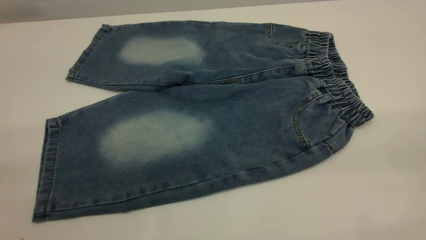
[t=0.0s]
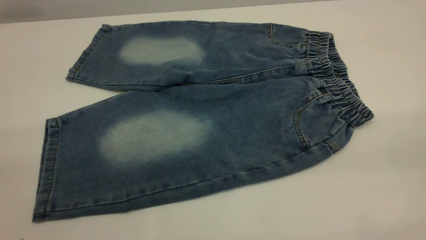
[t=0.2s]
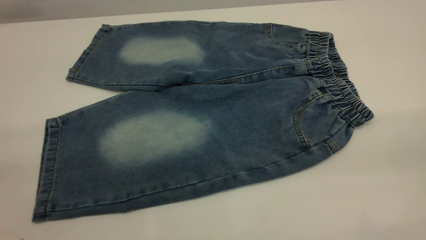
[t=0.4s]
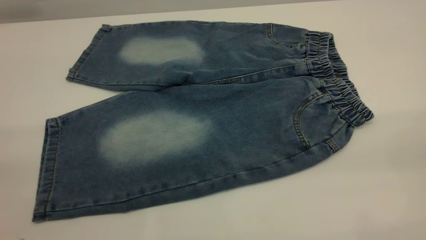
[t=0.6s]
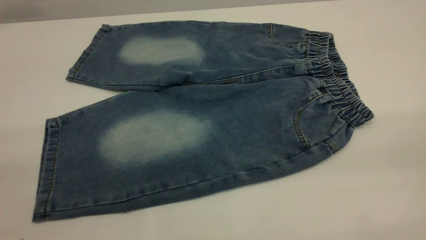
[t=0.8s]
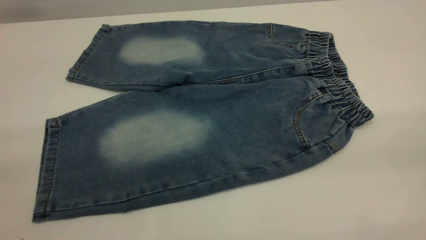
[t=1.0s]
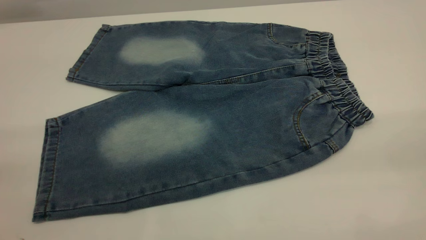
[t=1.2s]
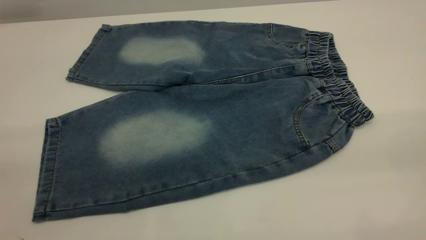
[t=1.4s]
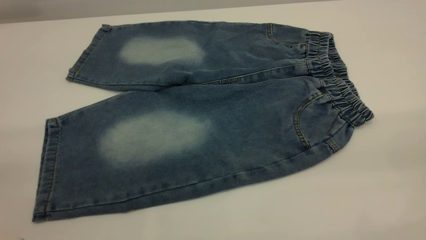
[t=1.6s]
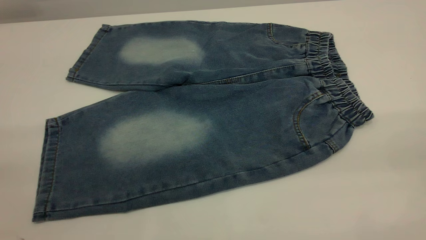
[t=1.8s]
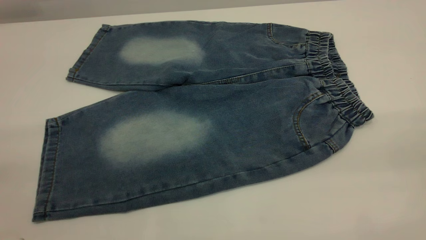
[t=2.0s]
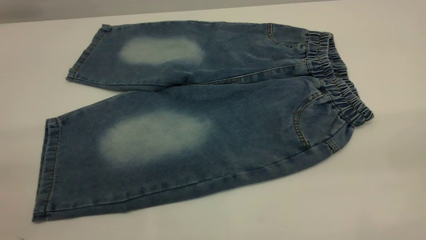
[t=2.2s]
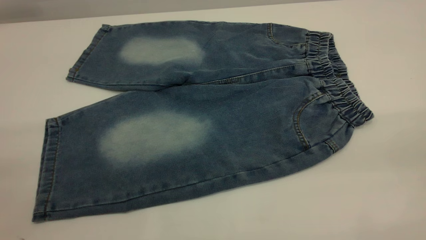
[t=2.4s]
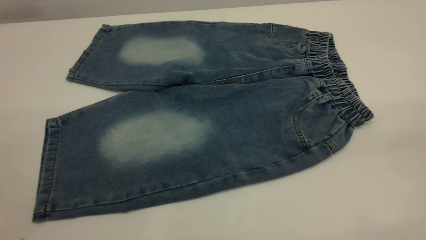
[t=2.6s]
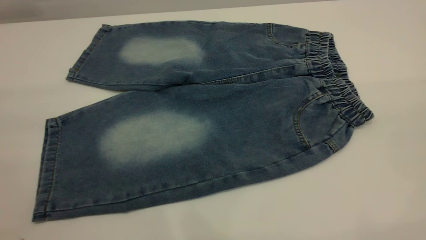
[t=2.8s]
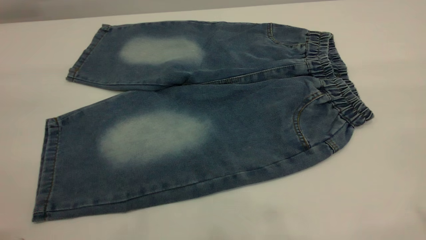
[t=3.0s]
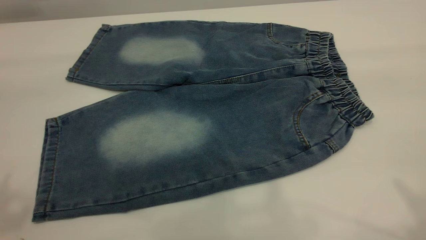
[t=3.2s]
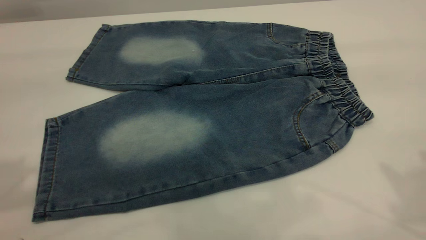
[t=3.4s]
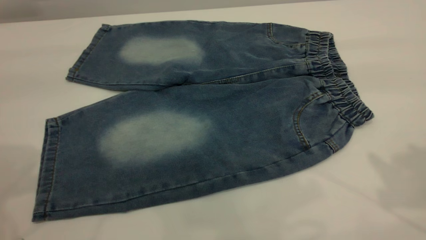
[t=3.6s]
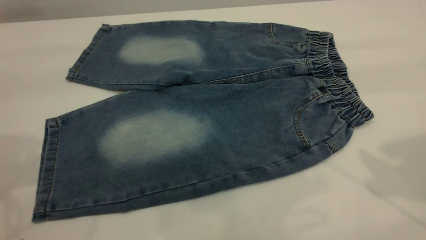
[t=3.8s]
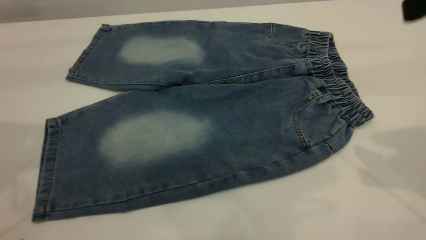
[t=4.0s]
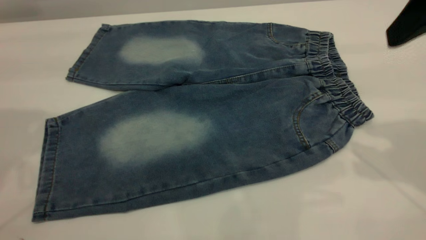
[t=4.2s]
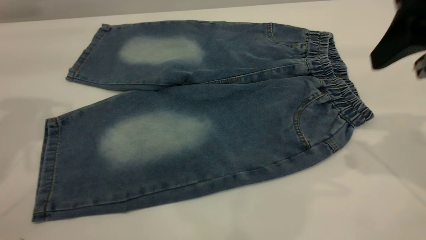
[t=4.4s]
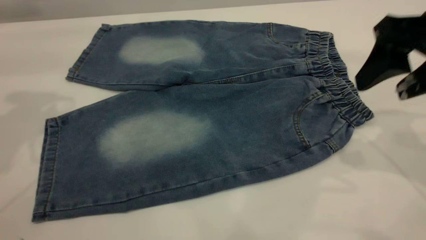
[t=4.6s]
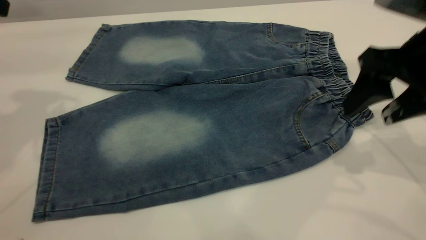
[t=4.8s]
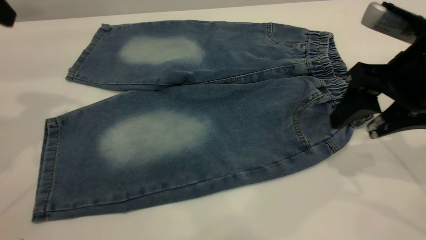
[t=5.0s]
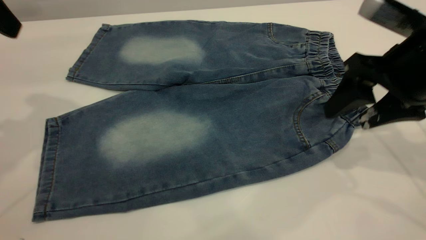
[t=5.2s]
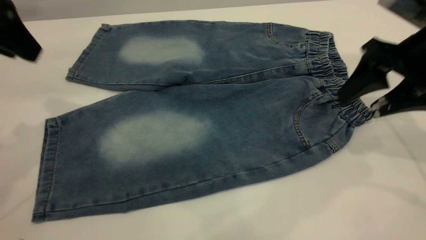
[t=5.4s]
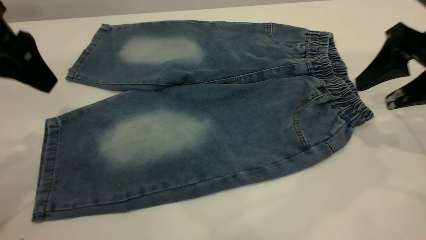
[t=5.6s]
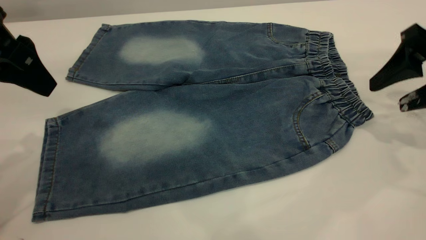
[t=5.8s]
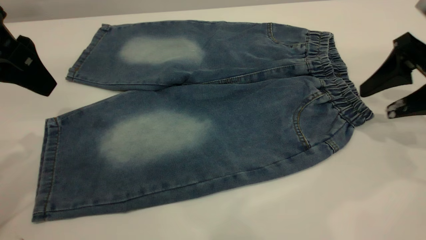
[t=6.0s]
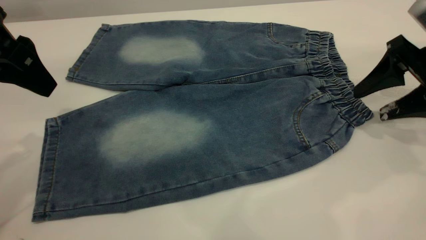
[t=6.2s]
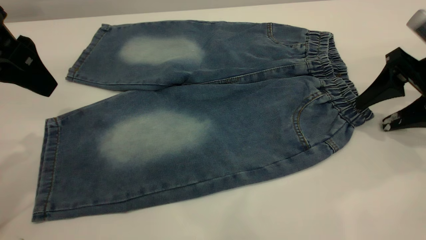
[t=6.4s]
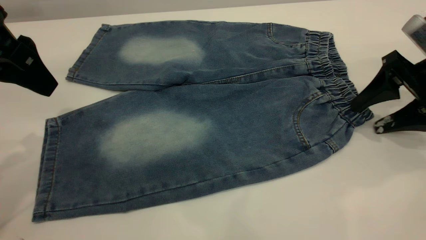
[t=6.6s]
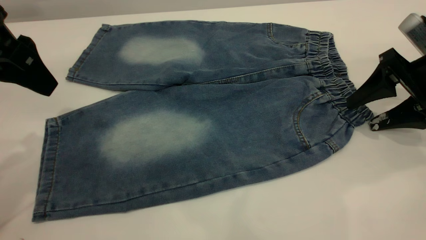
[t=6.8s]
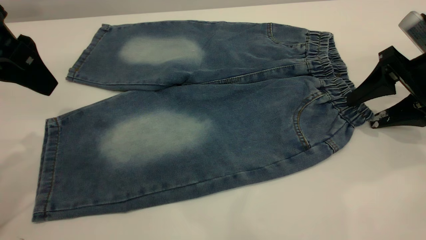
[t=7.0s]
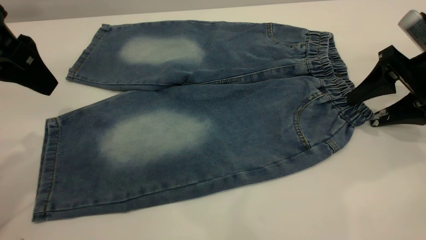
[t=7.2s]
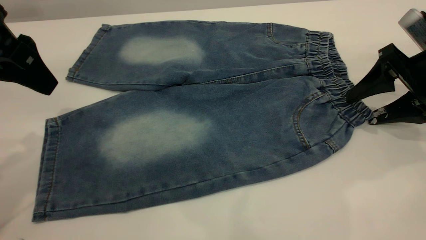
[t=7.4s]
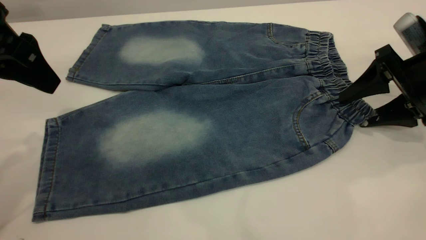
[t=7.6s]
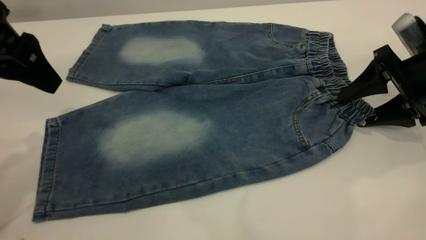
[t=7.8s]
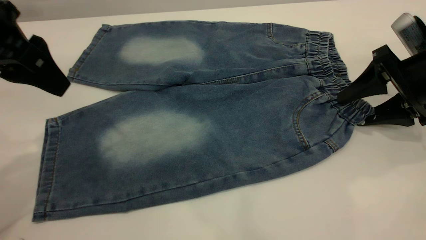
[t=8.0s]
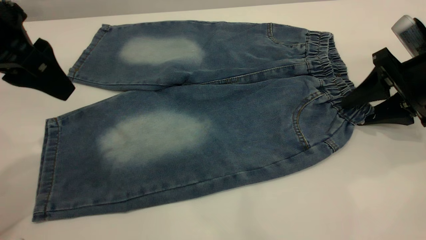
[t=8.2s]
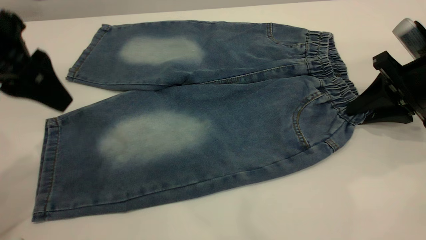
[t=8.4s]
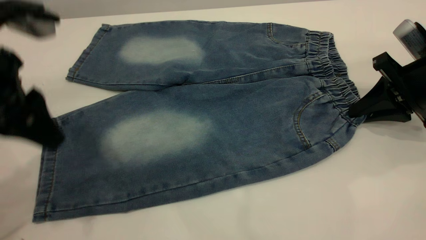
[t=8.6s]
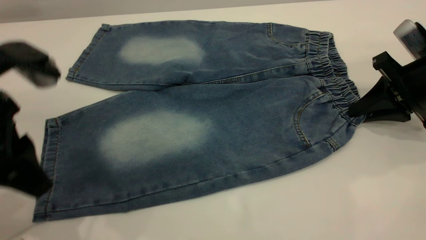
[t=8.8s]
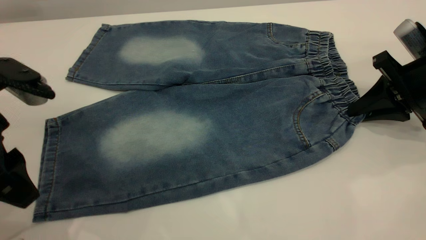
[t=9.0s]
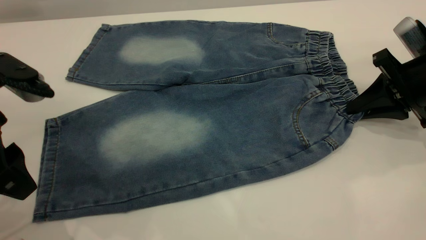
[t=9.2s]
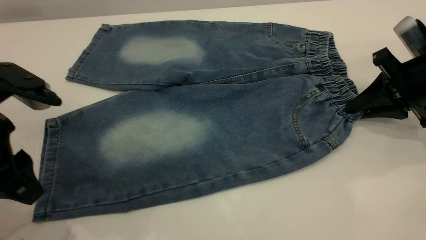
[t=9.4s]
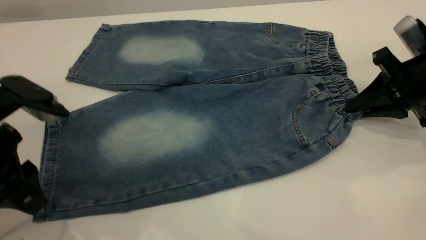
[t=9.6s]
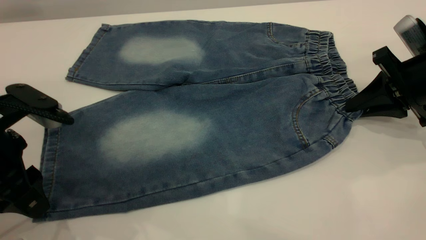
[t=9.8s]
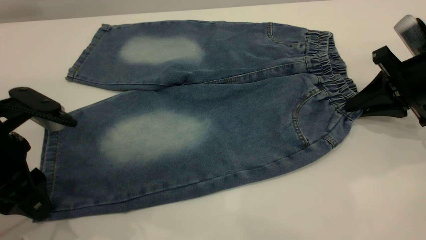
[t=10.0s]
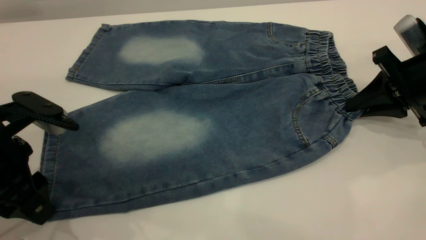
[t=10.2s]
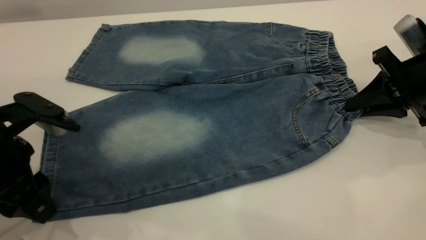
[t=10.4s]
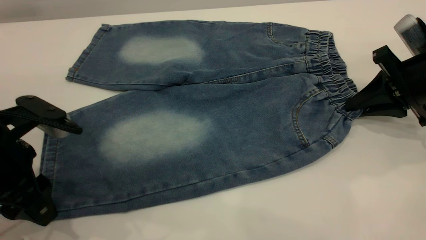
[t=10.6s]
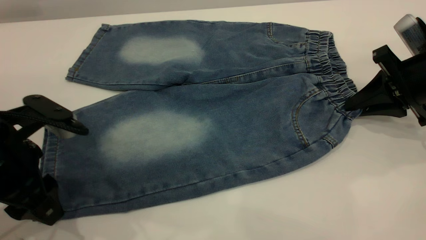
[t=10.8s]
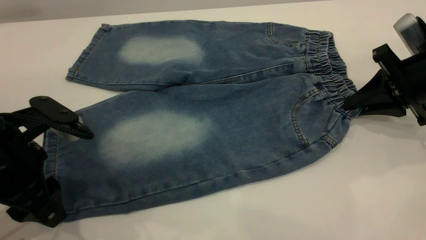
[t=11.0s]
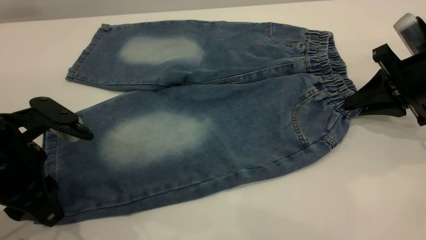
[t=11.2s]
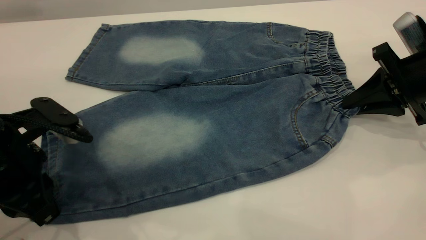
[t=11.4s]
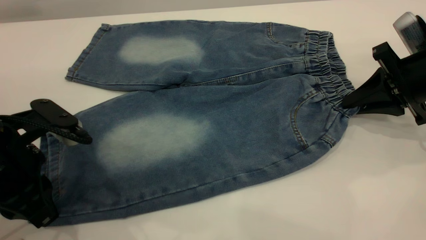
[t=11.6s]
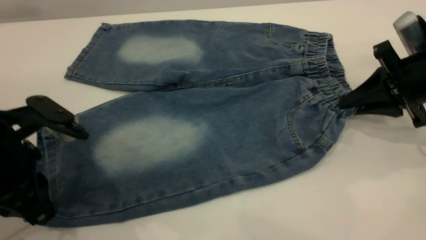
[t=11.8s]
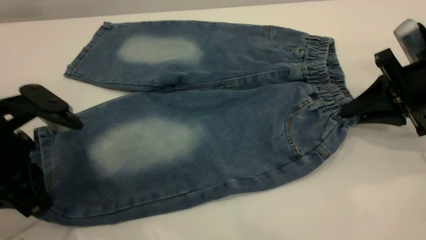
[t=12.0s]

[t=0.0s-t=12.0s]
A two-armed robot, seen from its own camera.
t=0.0s to t=1.6s: Both grippers stay about where they are.
t=3.0s to t=4.4s: The right gripper is displaced forward and downward by some 20 cm.
t=4.4s to t=6.0s: Both grippers move downward and to the right, roughly 10 cm.
t=6.0s to t=7.6s: The grippers move only a little.
t=7.6s to t=9.0s: The right gripper closes its fingers, while the left gripper moves backward and downward, some 10 cm.
t=9.0s to t=10.4s: The left gripper shifts approximately 5 cm downward.
t=10.4s to t=12.0s: The left gripper closes its fingers.

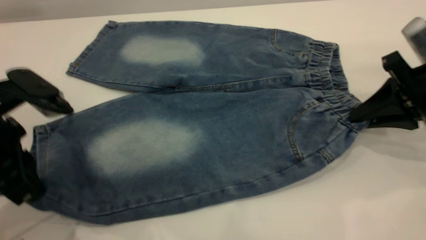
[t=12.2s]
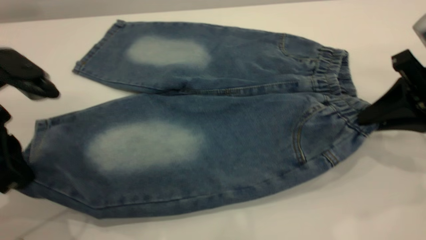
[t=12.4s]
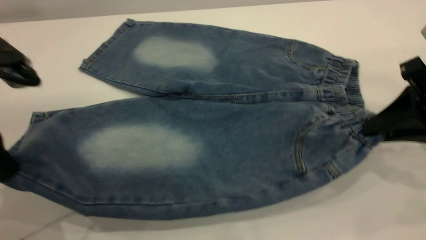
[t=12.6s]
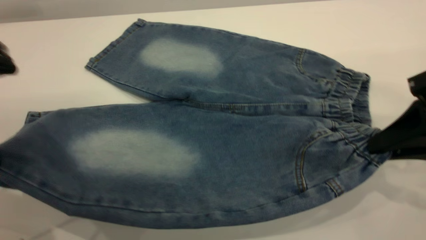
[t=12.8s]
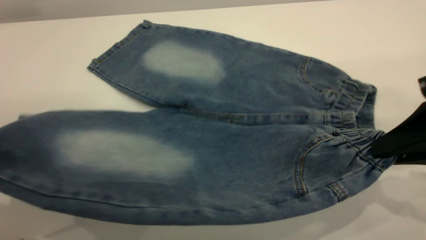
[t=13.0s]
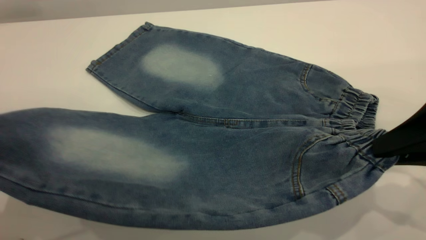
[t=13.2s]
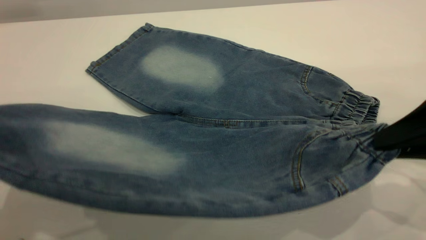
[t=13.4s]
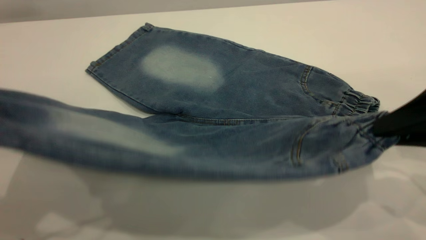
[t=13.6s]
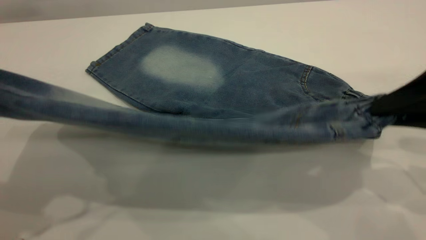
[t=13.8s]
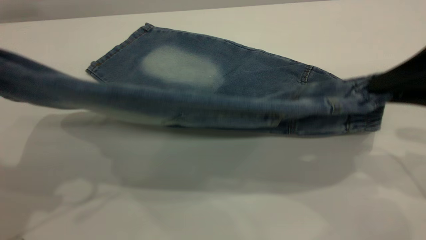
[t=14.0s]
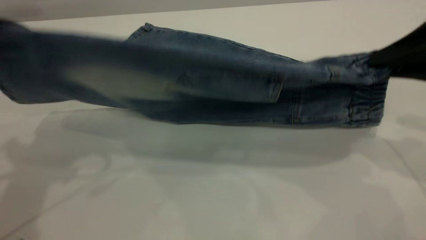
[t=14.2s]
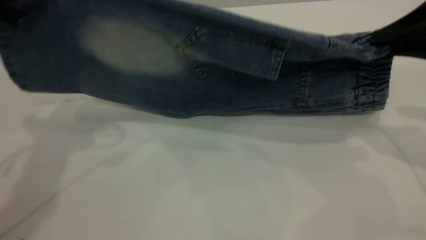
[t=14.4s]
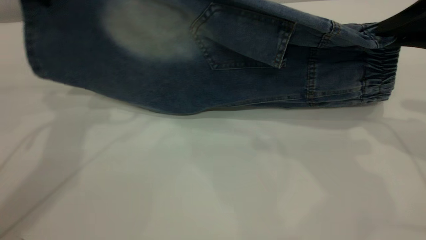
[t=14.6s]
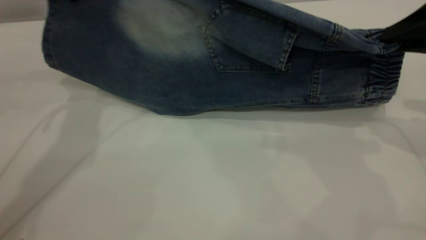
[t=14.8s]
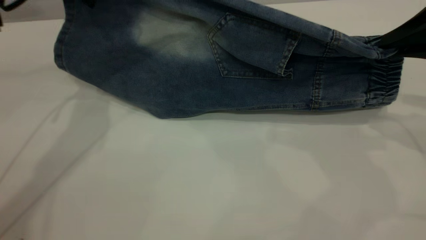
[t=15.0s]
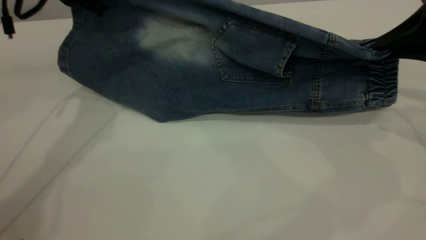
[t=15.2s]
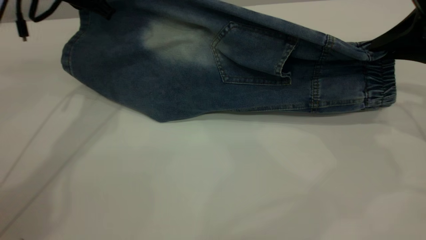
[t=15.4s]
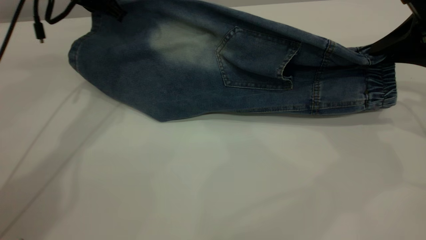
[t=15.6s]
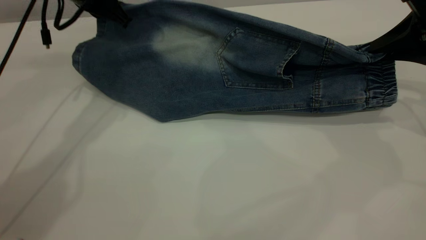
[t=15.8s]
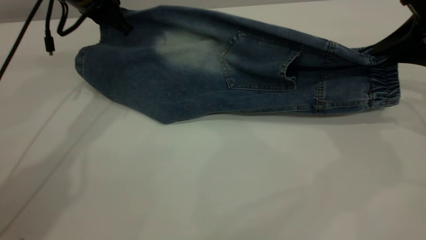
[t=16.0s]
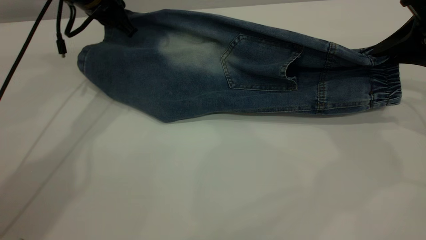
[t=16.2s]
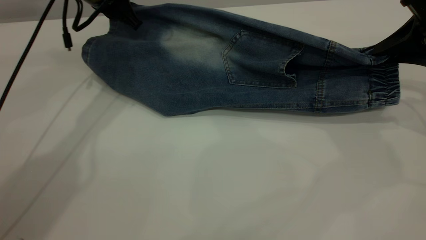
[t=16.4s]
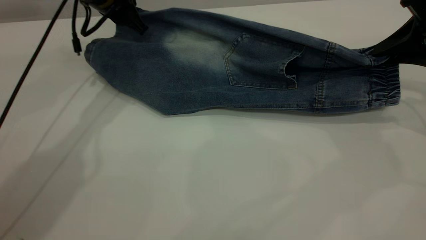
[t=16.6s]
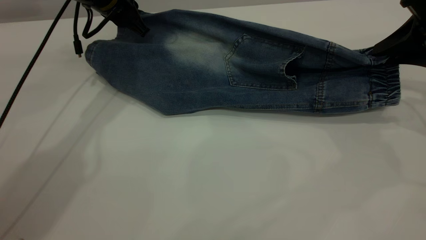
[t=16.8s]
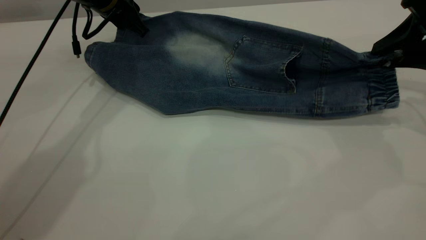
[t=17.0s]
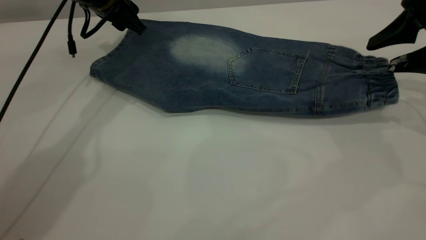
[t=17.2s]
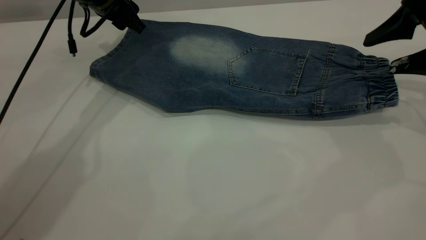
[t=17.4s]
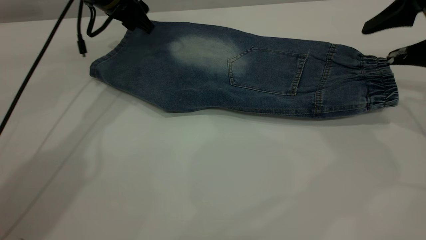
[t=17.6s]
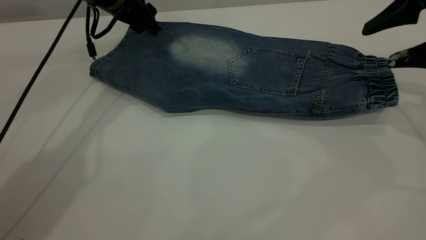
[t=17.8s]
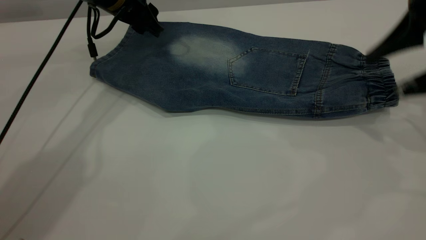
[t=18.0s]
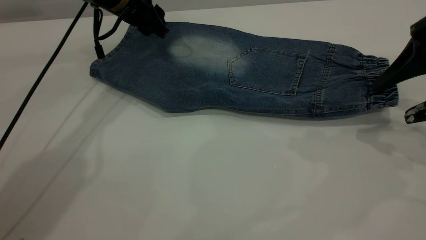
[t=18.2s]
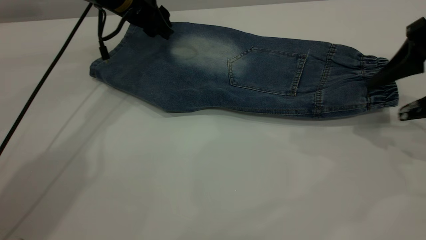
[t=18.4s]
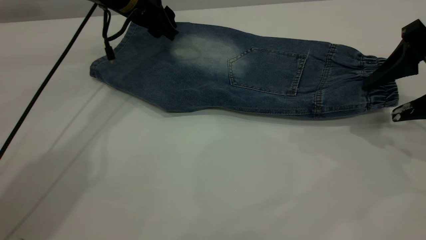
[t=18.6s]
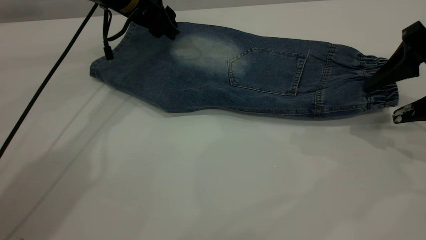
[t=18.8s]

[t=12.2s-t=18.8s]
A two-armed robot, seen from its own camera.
Step, t=12.2s to t=17.4s: Fold the bottom of the pants upward.
t=12.2s to t=13.8s: The left gripper heads upward, covering some 10 cm. Meanwhile the right gripper goes some 10 cm backward and upward.
t=13.8s to t=15.4s: The right gripper goes approximately 10 cm forward, while the left gripper shifts roughly 25 cm forward.
t=15.4s to t=17.2s: The right gripper opens up. Meanwhile the left gripper is displaced downward and forward by about 10 cm, and opens its fingers.
